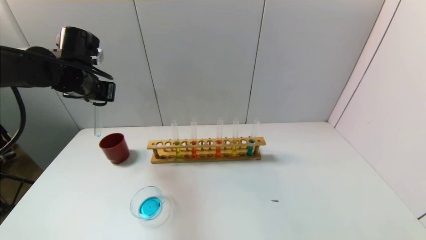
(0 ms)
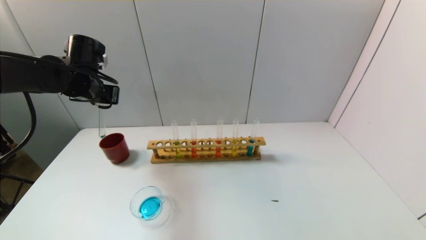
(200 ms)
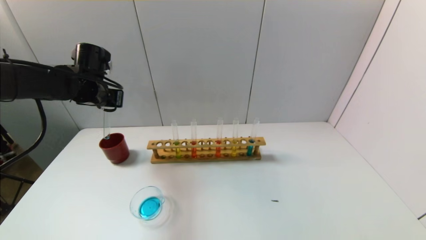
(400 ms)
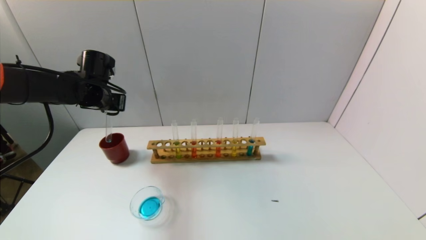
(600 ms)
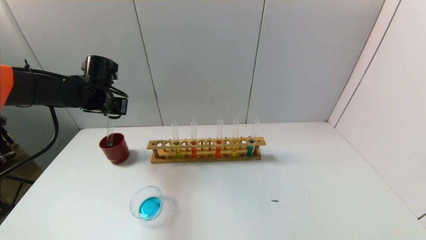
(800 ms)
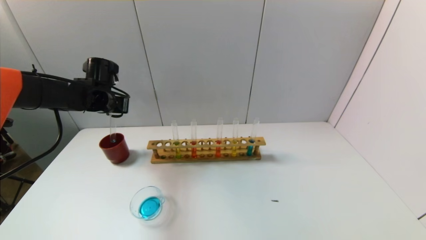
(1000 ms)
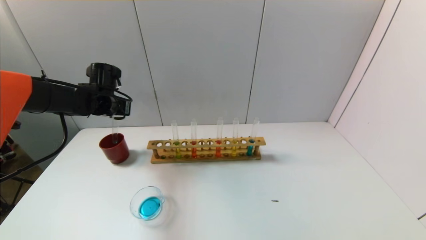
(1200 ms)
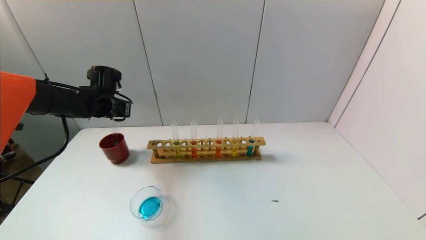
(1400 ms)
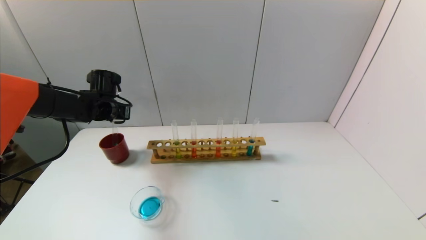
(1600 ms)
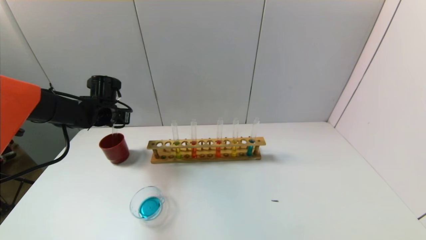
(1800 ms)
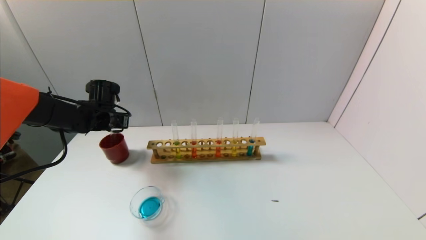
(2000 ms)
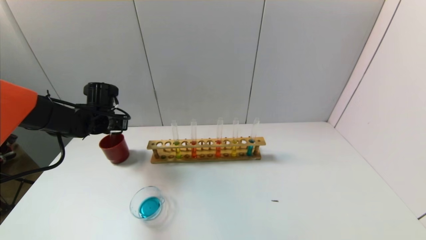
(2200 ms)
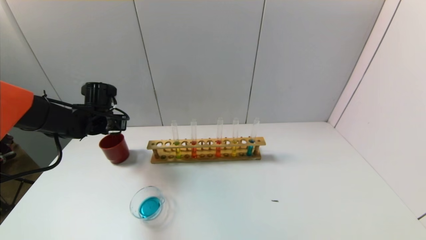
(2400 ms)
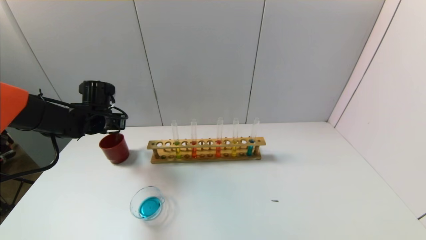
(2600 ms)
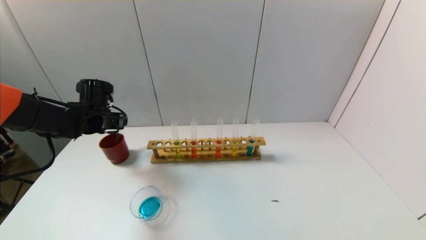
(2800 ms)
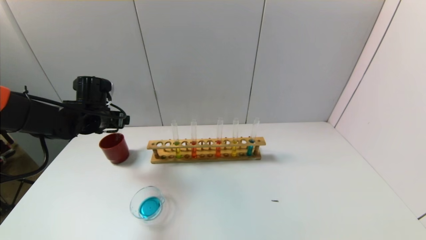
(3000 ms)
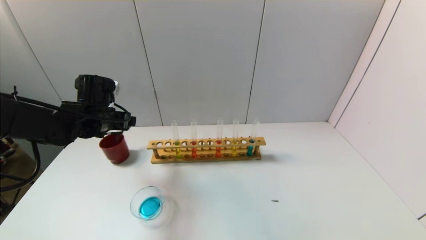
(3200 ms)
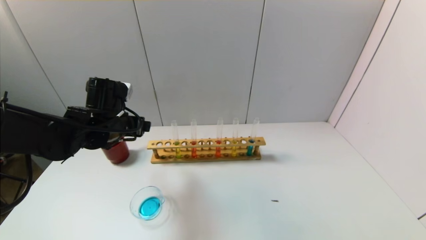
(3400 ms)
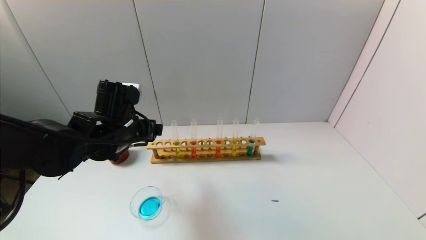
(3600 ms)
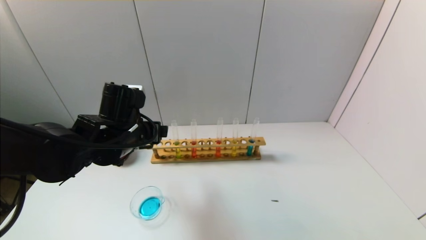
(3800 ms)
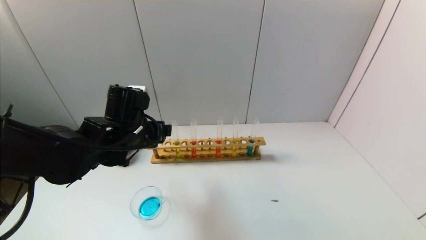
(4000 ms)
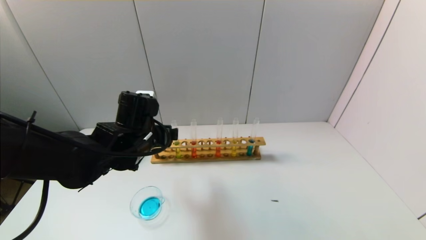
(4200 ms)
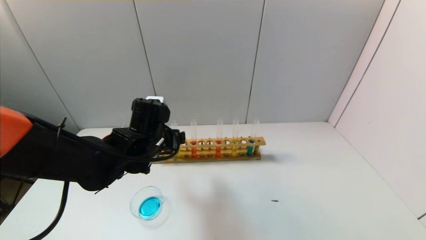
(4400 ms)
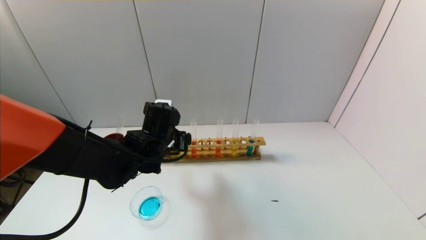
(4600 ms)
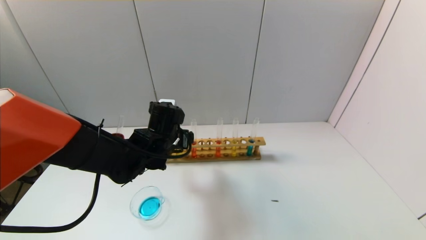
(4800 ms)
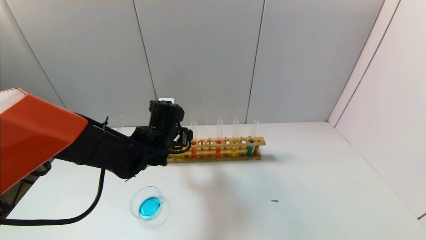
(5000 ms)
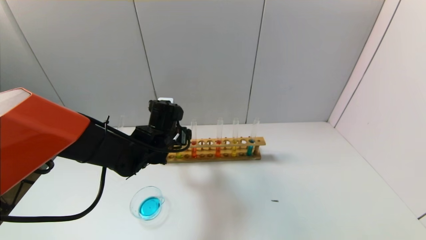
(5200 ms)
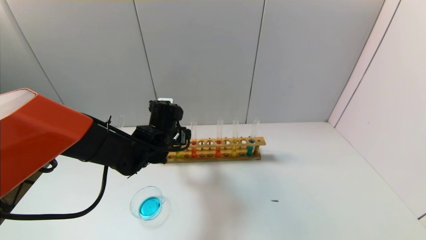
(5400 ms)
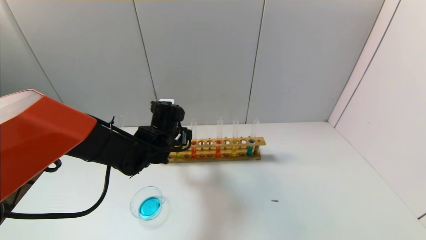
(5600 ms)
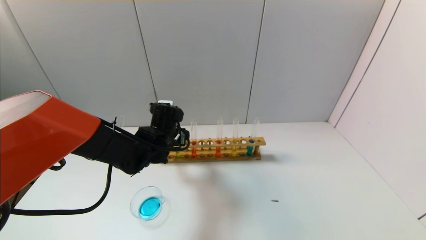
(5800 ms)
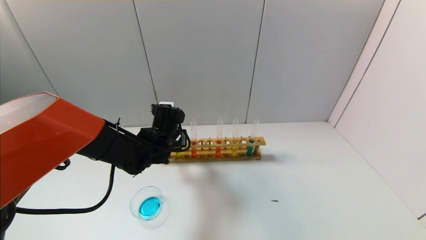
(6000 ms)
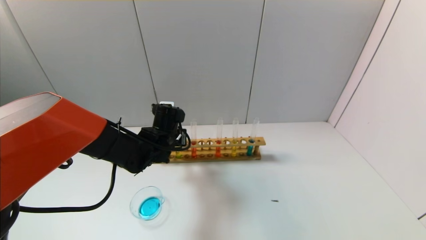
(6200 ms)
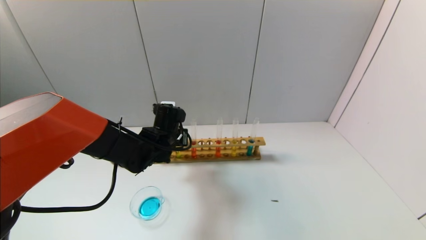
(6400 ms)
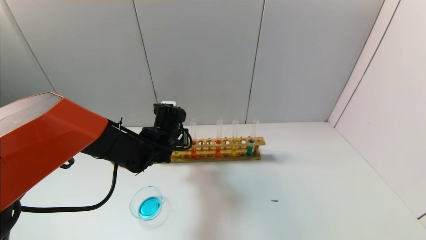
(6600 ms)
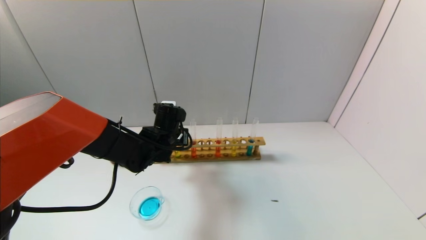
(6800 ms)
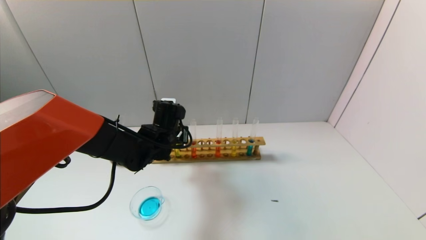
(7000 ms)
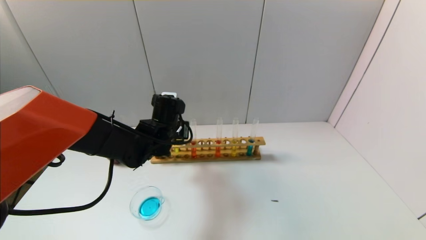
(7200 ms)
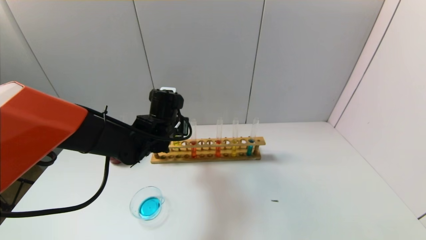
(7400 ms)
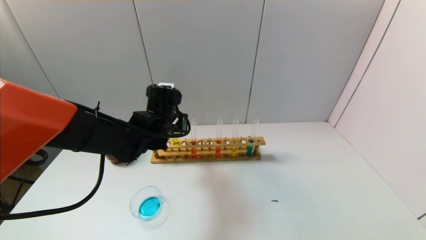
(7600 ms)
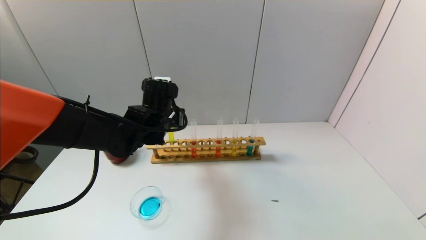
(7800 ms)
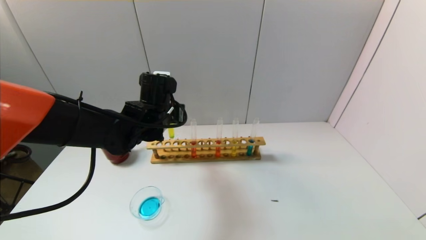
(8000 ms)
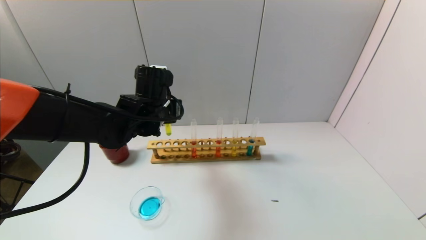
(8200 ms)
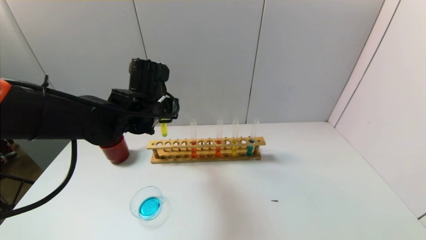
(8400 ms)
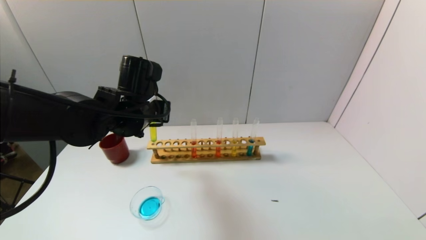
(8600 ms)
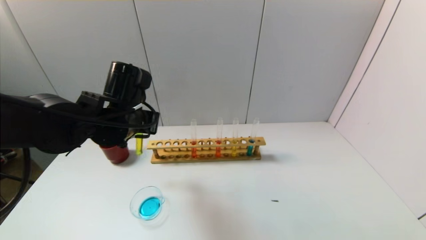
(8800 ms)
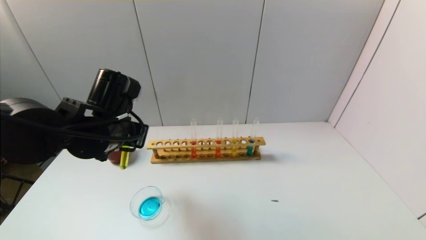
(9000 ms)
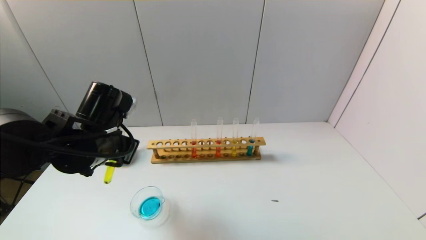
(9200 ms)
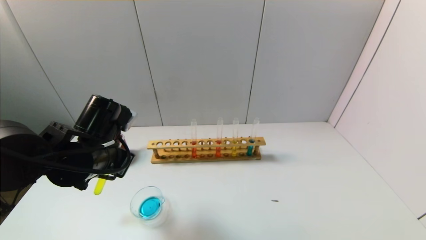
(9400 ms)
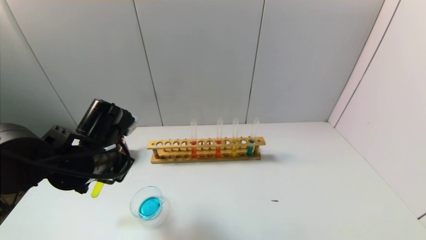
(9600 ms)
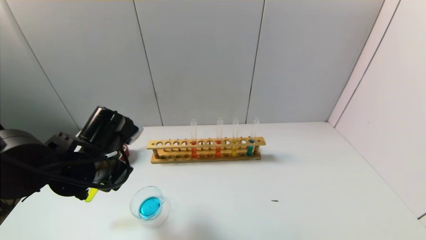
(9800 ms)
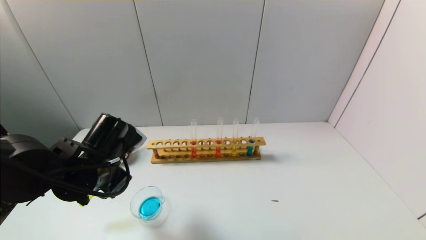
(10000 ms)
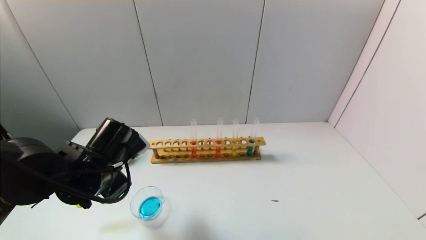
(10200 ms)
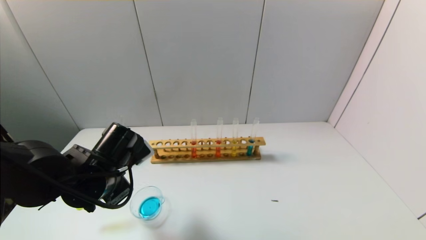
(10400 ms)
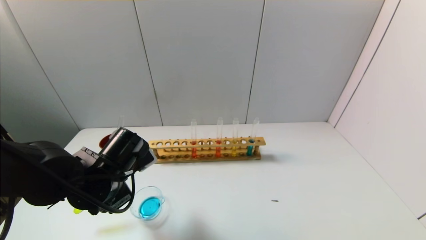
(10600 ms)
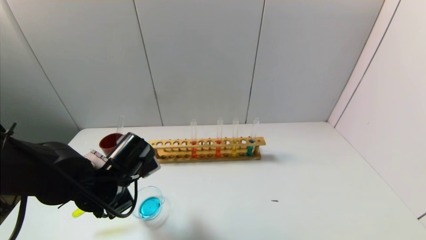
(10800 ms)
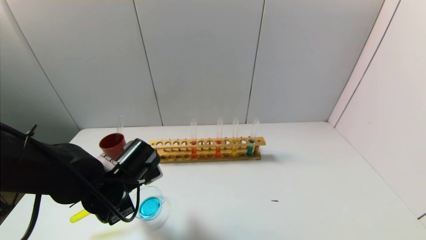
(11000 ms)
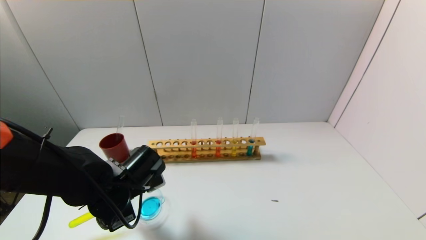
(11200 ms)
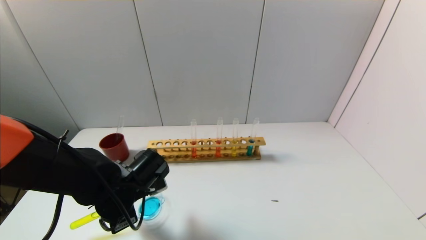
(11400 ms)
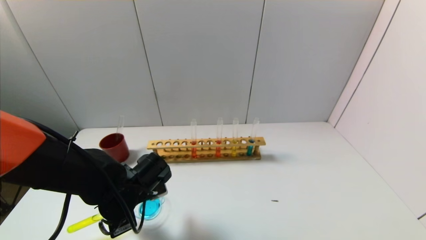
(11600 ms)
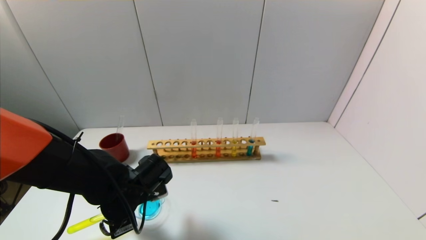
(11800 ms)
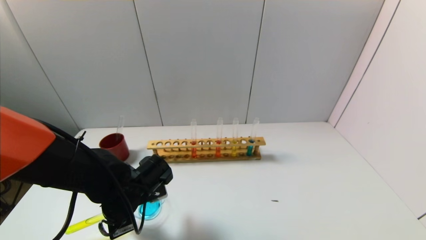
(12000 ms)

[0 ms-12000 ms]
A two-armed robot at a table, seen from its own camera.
Task of the whole recording: pick up the test tube with yellow pigment and the test tube with blue pigment by grippers and pour them into the beaker.
Step, 0 ms to 2600 ms: Place the test tube into the brown cup with the left gripper.
Step, 2800 ms to 6800 ms: Grasp the yellow reagent with the left gripper.
0 ms to 1600 ms: The left gripper heads downward and forward, covering some 10 cm.
1600 ms to 3000 ms: The left gripper heads backward, covering roughly 5 cm, and opens its fingers.
3000 ms to 4400 ms: The left gripper goes roughly 15 cm to the right and backward.
4400 ms to 6000 ms: The left gripper goes roughly 5 cm forward.
6000 ms to 7600 ms: The left gripper is displaced upward by some 5 cm, and closes.
7600 ms to 9000 ms: The left gripper is displaced backward and to the left by some 10 cm.
9000 ms to 10400 ms: The left gripper shifts approximately 10 cm downward.
10400 ms to 12000 ms: The left gripper moves downward, about 5 cm.

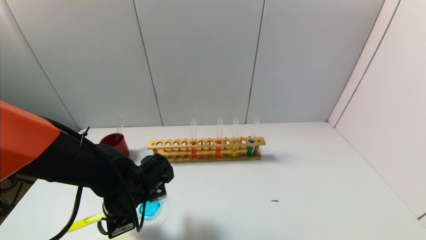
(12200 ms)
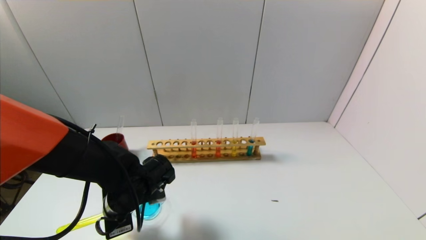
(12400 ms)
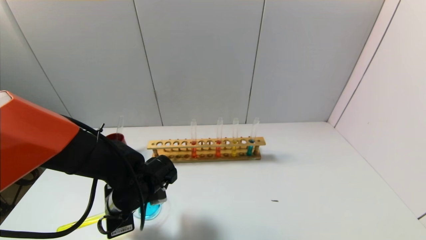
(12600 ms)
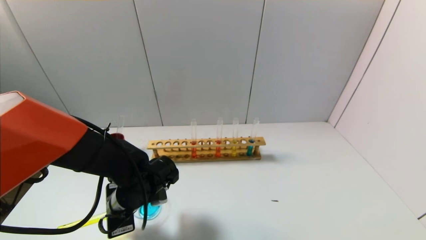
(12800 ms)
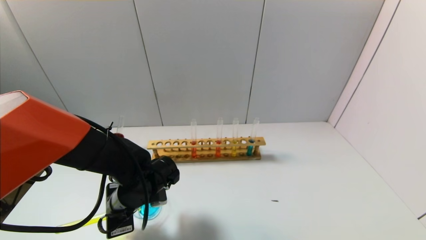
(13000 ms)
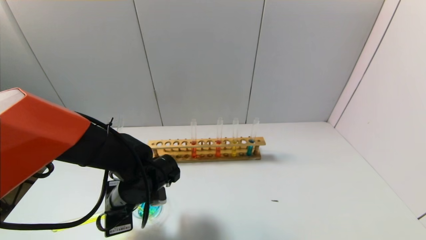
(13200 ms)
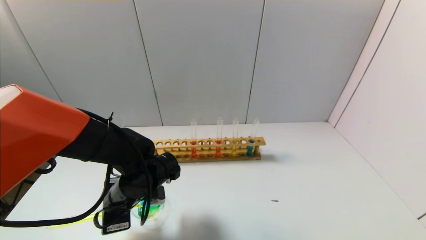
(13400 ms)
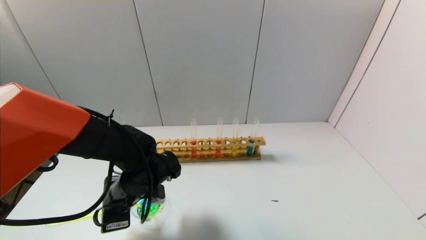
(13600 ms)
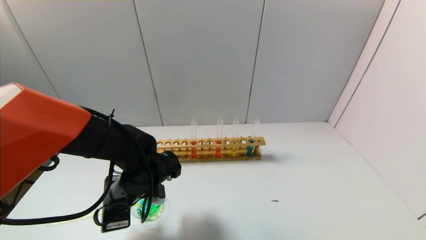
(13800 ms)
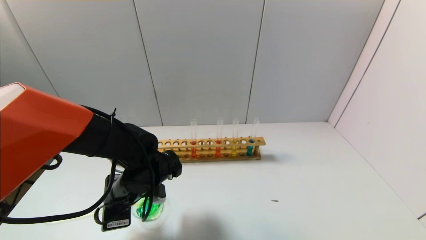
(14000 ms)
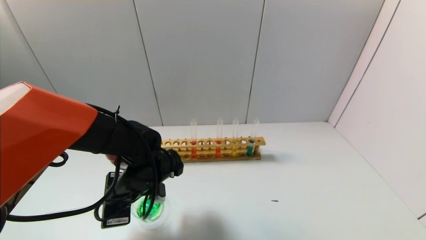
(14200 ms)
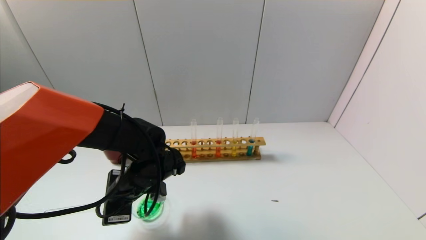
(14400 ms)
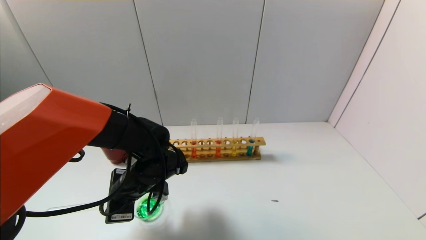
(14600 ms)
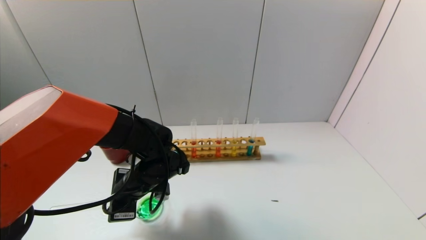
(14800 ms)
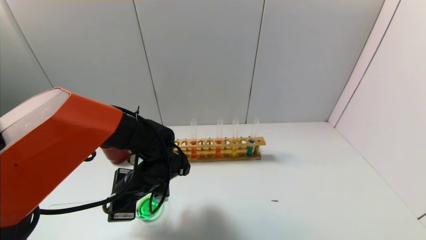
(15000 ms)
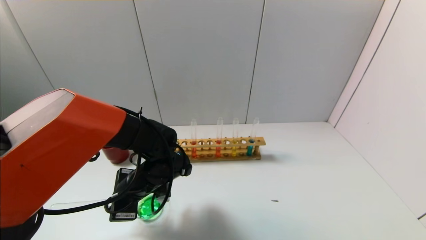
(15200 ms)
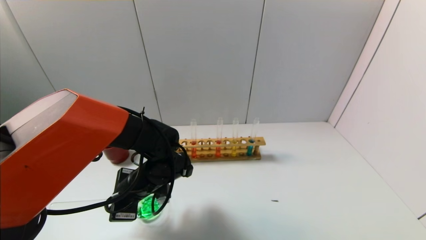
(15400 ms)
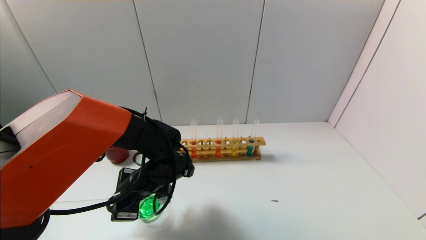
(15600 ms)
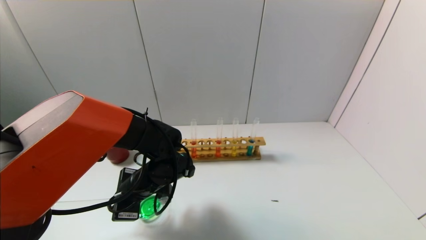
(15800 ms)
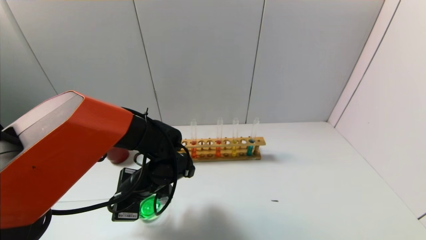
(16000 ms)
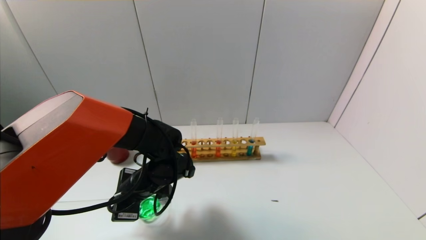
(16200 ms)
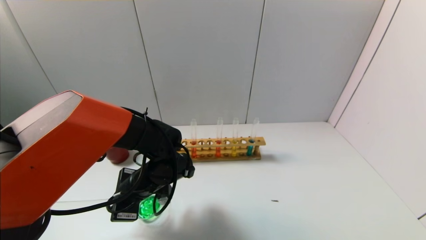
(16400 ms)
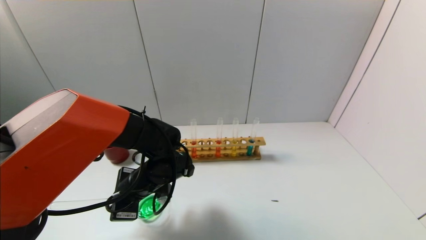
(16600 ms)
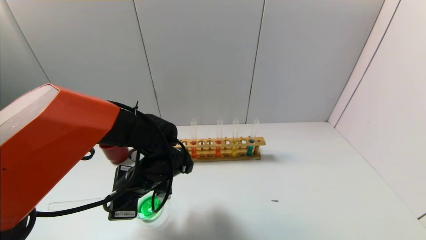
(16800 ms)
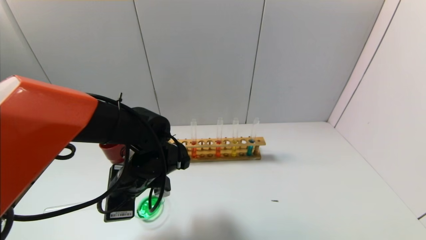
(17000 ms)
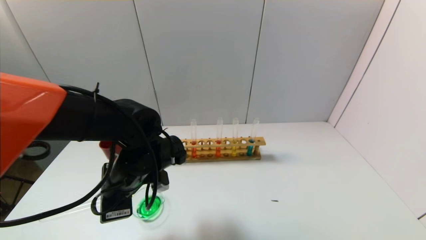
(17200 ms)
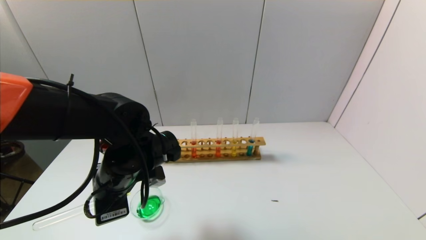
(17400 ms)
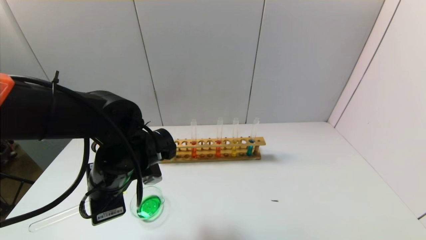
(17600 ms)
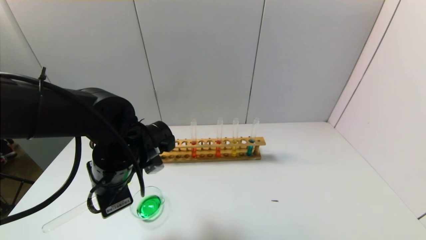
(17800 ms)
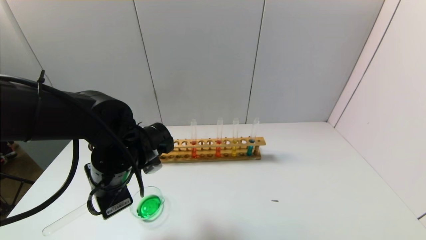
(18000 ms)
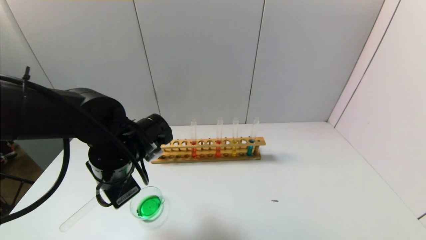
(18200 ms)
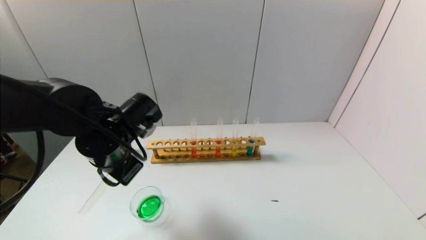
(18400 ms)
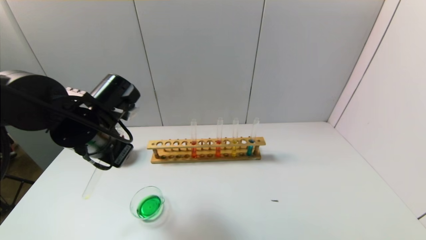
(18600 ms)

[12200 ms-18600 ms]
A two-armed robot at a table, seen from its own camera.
Task of the whole recording: pick up the test tube with yellow pigment and the test tube with blue pigment by grippers and pour them into the beaker.
Step, 12200 ms to 17000 ms: Pour the yellow reagent into the graduated cylinder with the left gripper.
12200 ms to 13800 ms: The grippers make only small movements.
13800 ms to 17000 ms: There are only small adjustments of the grippers.
17000 ms to 18600 ms: The left gripper shifts approximately 10 cm upward and to the left.
